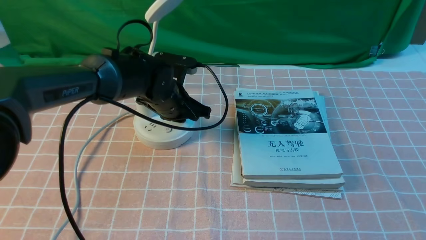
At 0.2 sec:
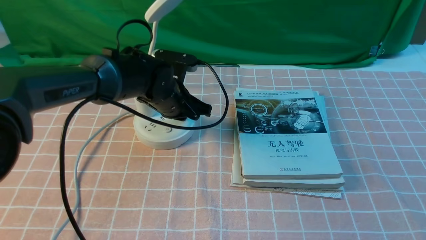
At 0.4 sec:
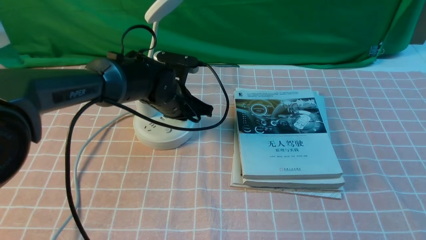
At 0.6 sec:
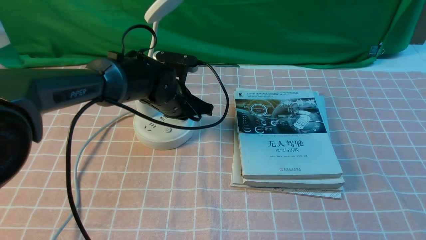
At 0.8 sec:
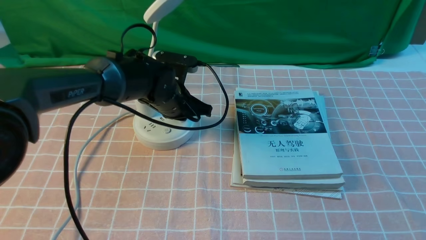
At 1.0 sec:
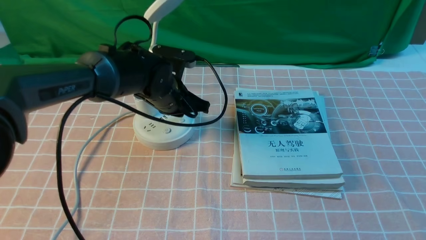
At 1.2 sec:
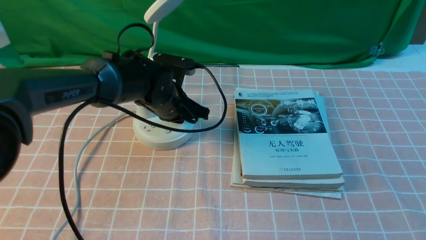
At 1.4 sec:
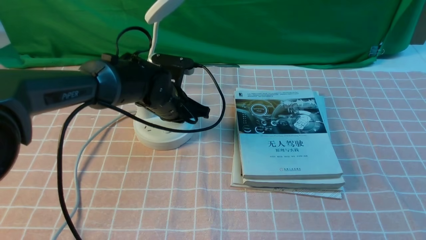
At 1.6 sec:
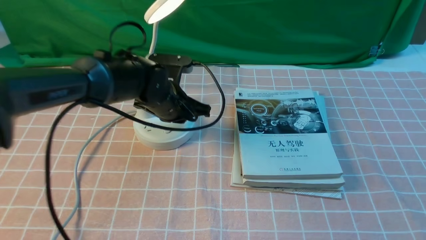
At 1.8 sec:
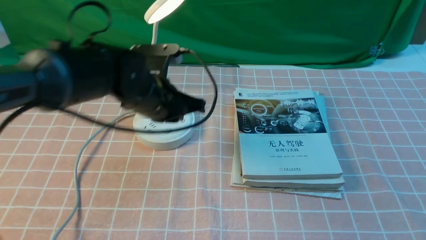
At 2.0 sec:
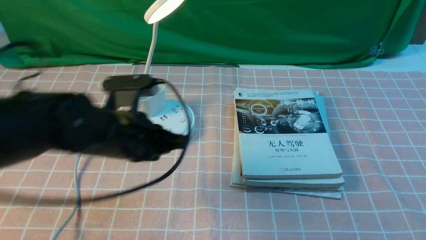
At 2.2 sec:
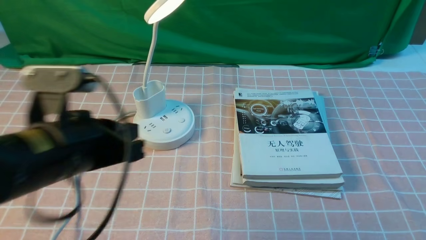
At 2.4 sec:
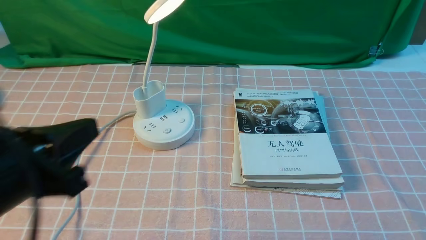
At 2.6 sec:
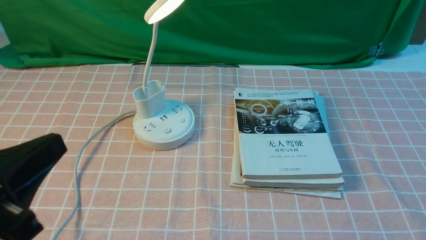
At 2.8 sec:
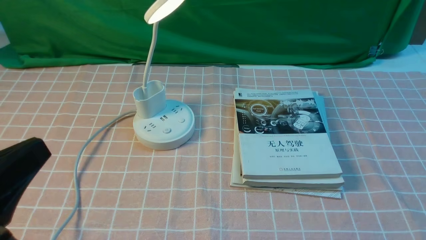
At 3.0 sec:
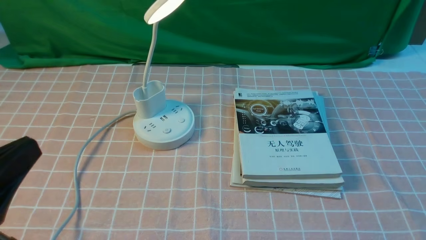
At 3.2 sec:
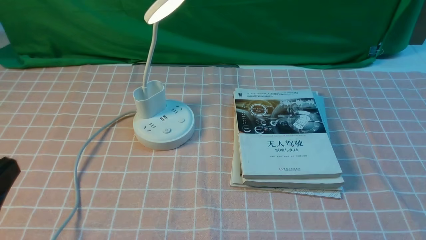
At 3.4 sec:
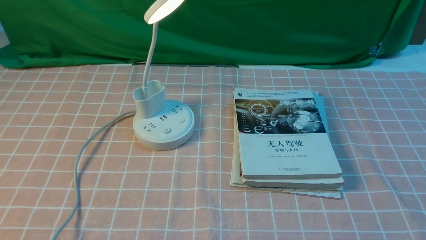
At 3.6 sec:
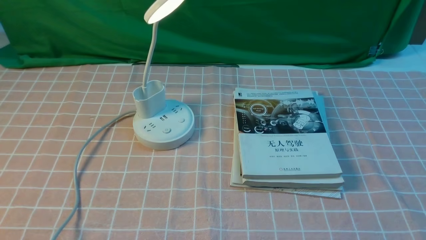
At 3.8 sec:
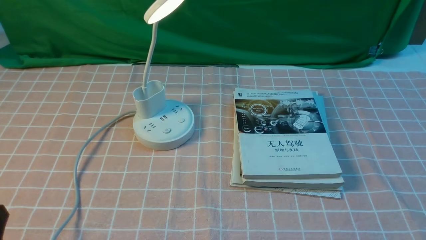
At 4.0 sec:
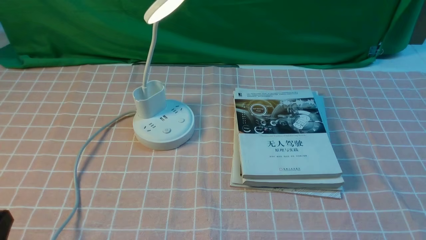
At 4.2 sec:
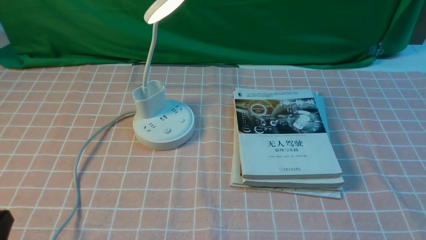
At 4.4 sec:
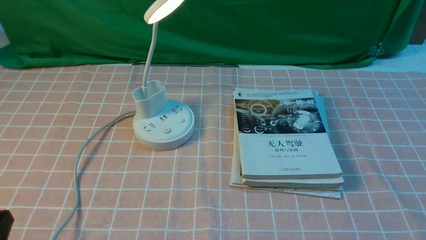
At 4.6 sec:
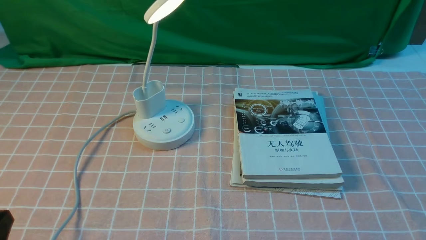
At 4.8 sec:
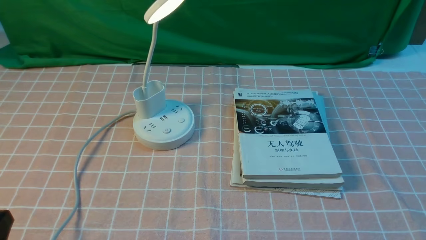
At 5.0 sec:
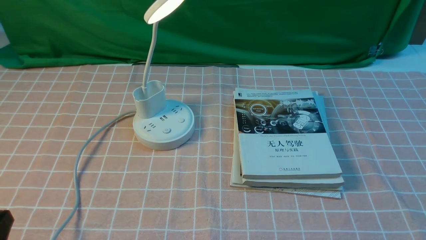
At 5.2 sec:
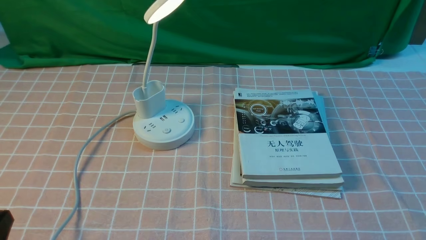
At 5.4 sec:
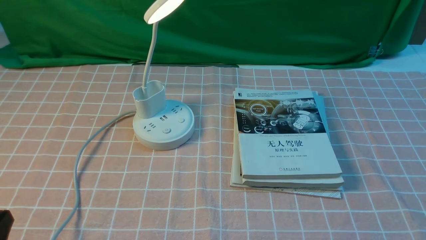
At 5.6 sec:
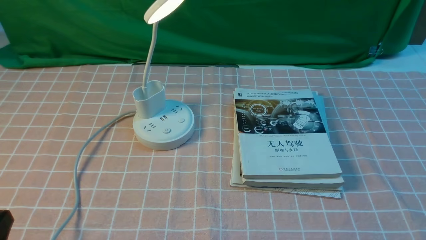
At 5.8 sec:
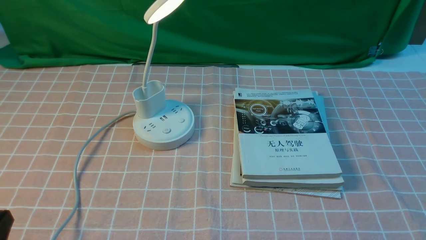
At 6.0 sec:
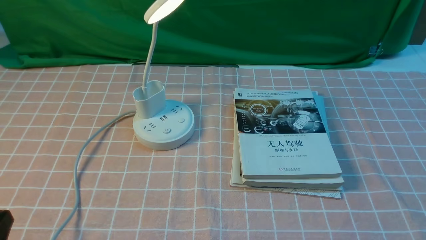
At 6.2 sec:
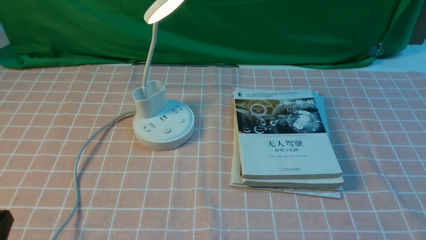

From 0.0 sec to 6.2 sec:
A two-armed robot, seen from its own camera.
From 0.0 sec to 1.6 sec: The grippers stay close to where they were, moving slightly.
From 1.6 sec to 3.2 sec: The left gripper moves backward and to the left, roughly 35 cm.
From 3.2 sec to 4.6 sec: The left gripper travels downward by about 10 cm.
From 4.6 sec to 6.2 sec: The two grippers keep their place.
